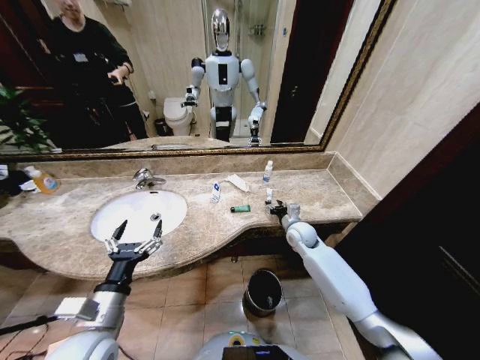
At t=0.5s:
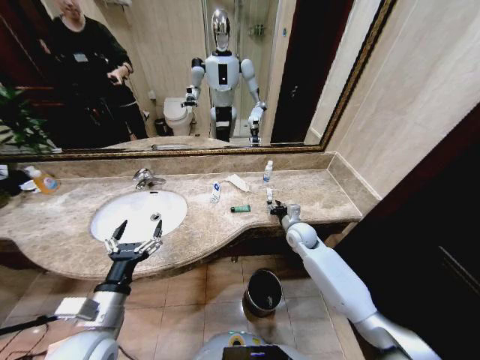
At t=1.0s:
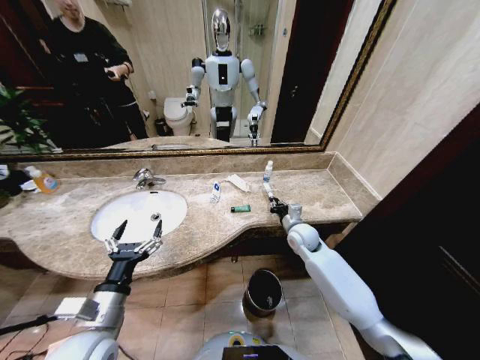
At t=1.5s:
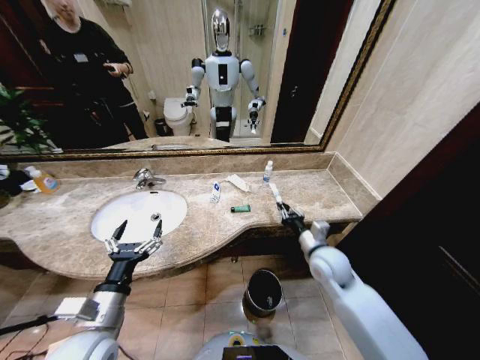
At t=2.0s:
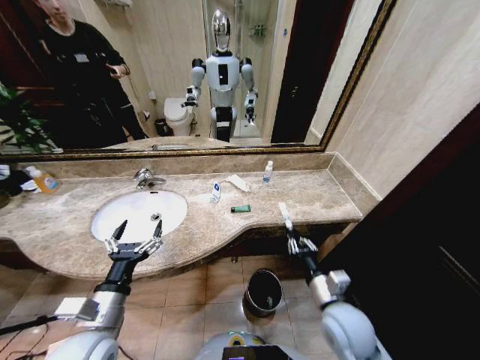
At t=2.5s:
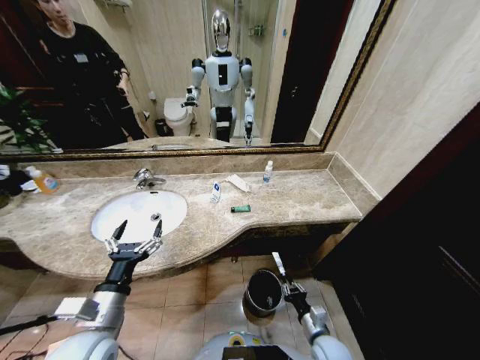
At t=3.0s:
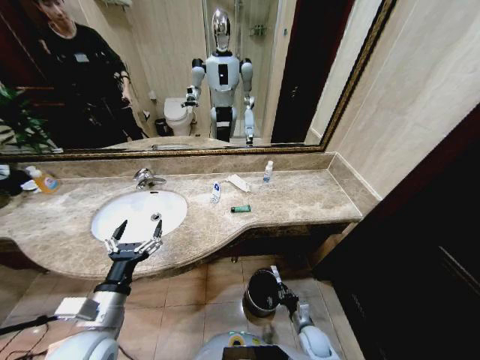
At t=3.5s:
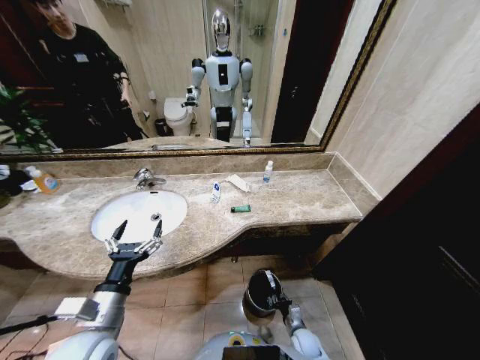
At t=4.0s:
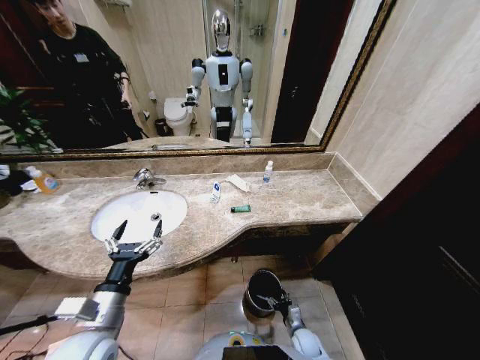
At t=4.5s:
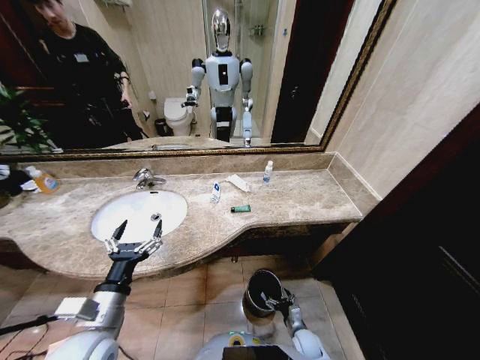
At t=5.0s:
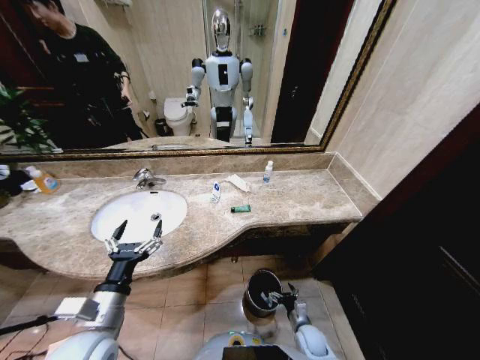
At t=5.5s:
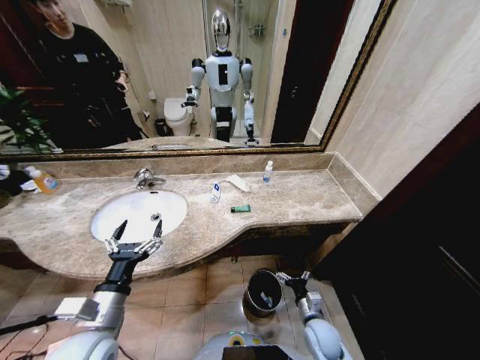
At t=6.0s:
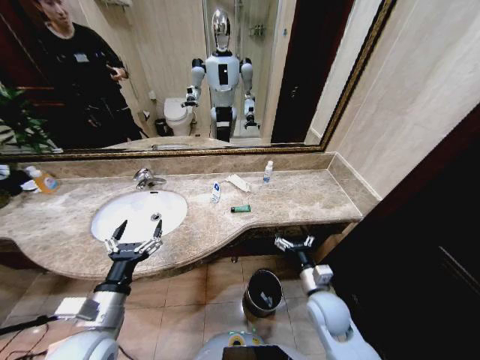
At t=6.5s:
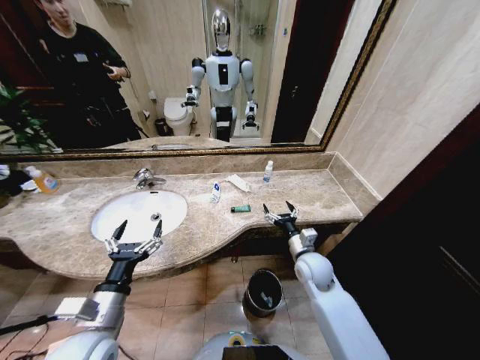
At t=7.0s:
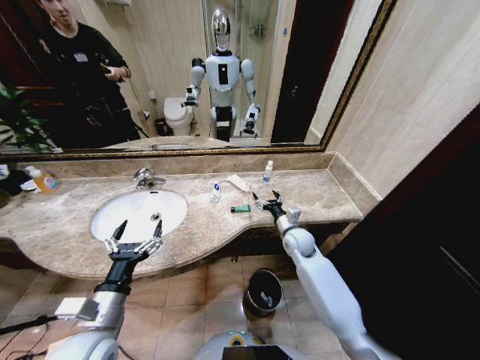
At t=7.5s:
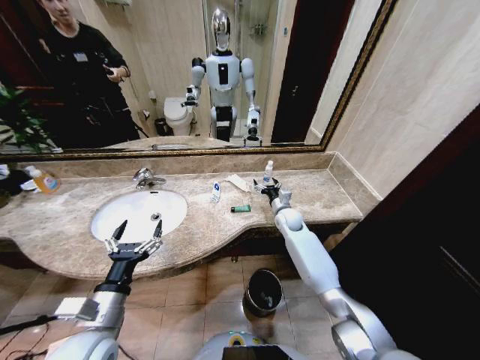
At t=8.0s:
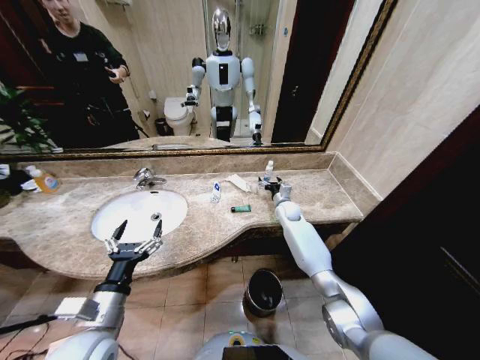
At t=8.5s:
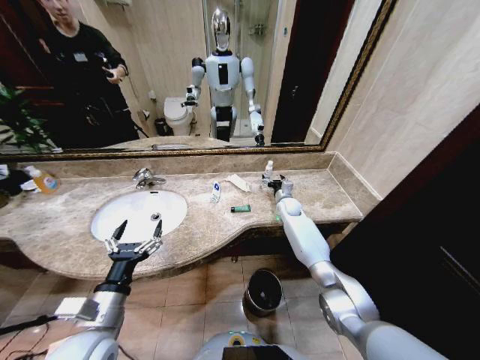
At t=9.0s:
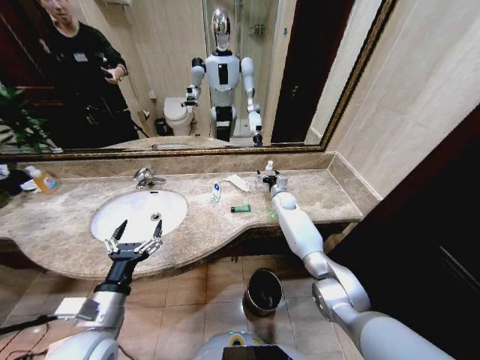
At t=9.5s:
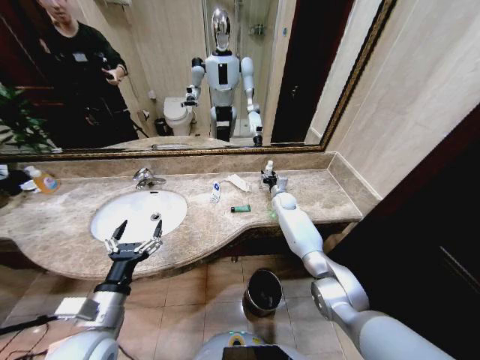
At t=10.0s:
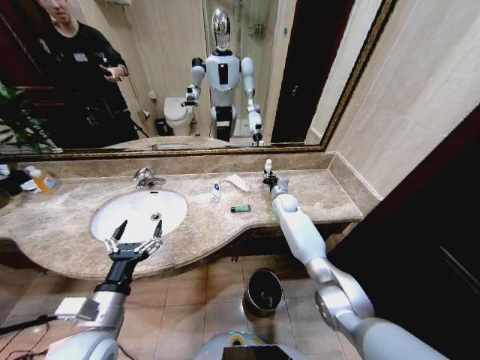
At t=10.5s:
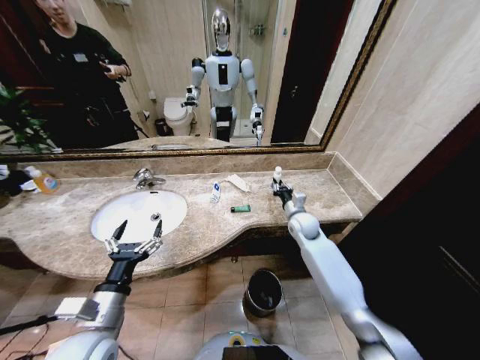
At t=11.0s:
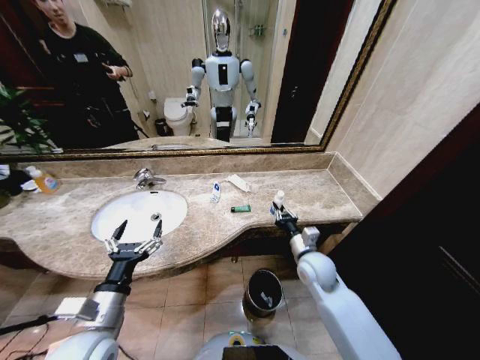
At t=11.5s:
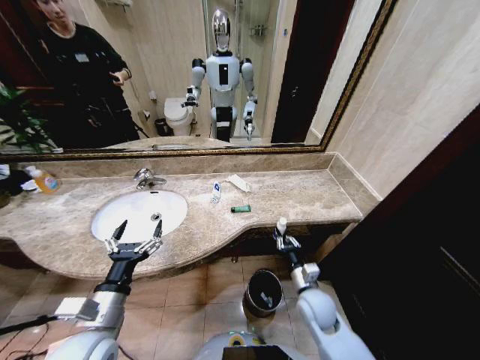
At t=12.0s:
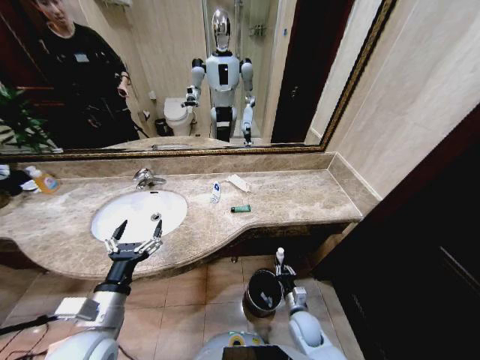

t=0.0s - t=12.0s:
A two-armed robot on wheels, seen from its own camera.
Task of the whole recording: Pick up the trash from the sink and place it in the trash bin.
t=0.0s - t=2.0s: The right gripper is displaced backward by some 25 cm, and closes its fingers.
t=2.0s - t=4.0s: The right gripper heads downward, covering some 30 cm, and opens its fingers.
t=4.0s - t=6.0s: The right gripper goes about 25 cm upward, and opens.
t=6.0s - t=8.0s: The right gripper heads forward, covering some 35 cm.
t=8.0s - t=10.0s: The right gripper closes up.
t=10.0s - t=12.0s: The right gripper shifts roughly 40 cm backward and downward.

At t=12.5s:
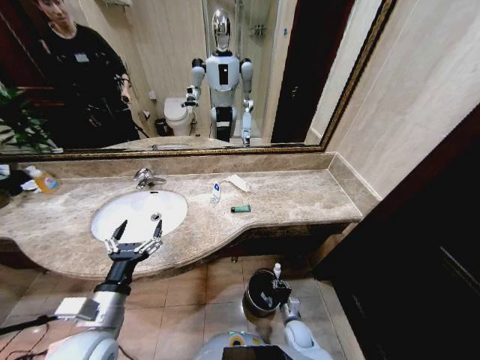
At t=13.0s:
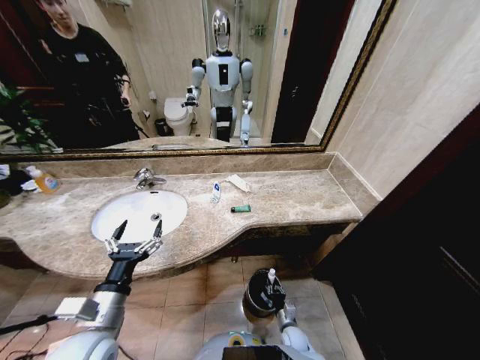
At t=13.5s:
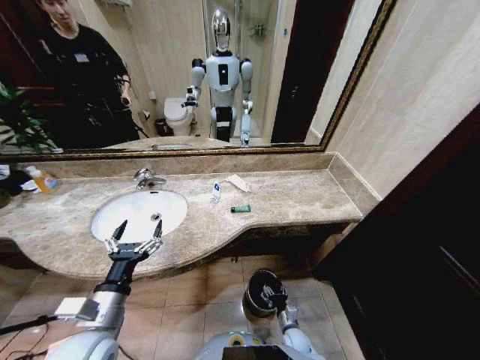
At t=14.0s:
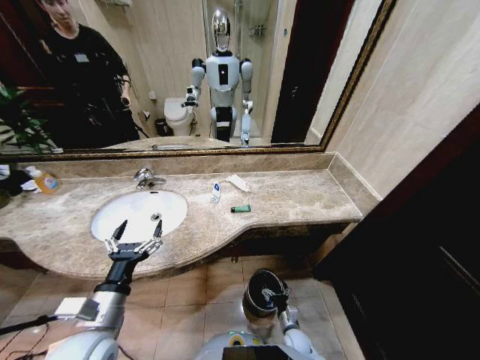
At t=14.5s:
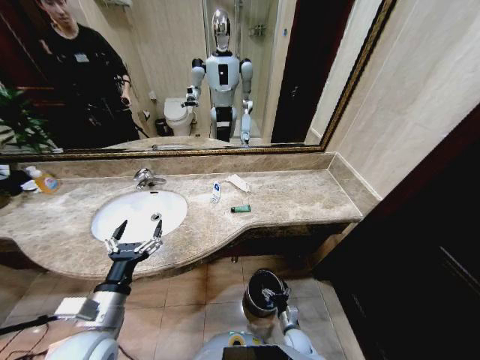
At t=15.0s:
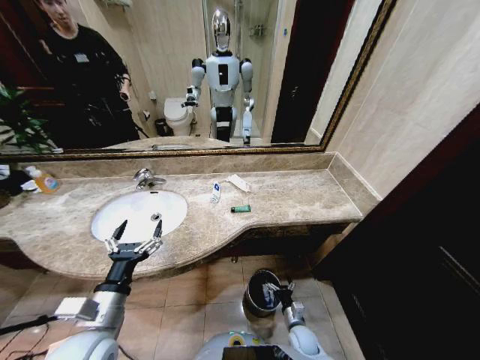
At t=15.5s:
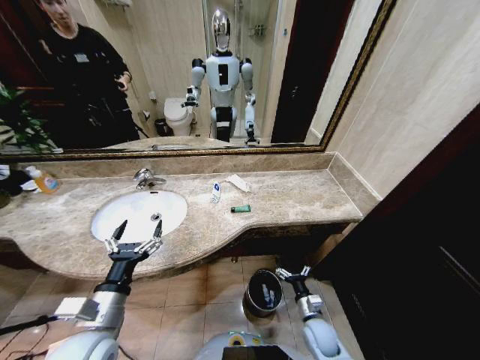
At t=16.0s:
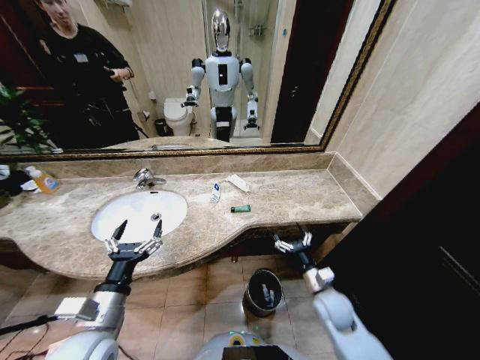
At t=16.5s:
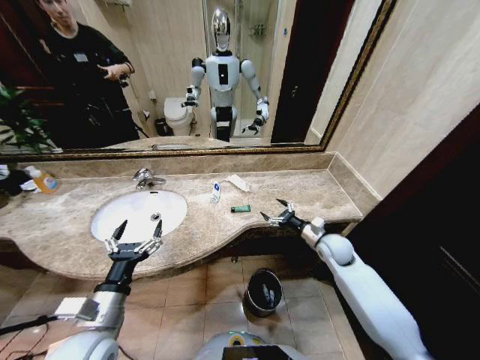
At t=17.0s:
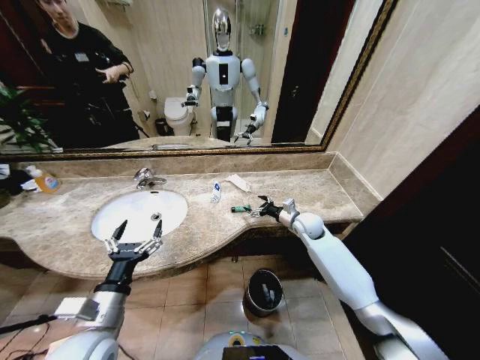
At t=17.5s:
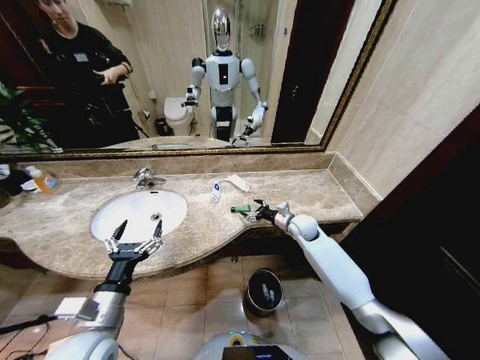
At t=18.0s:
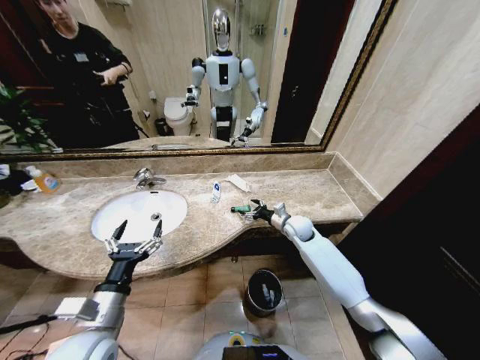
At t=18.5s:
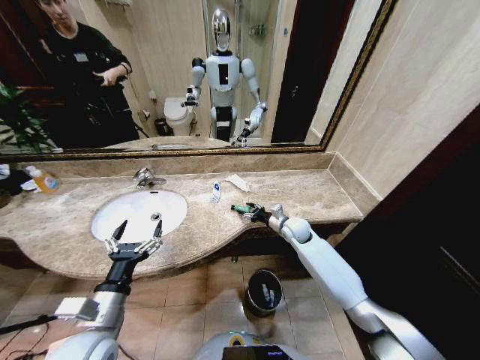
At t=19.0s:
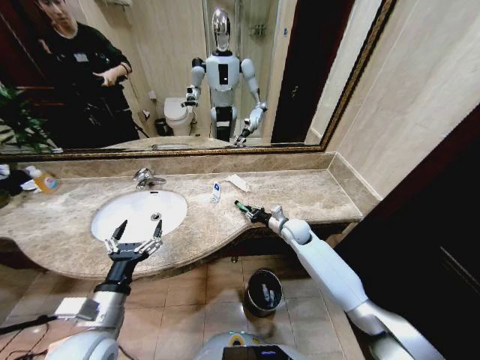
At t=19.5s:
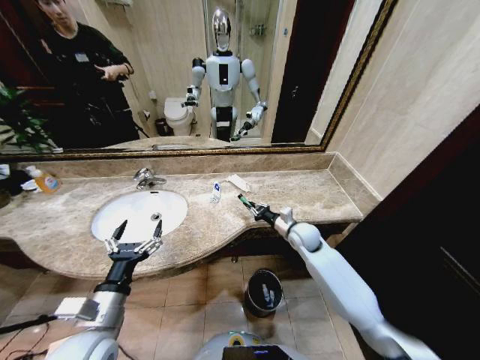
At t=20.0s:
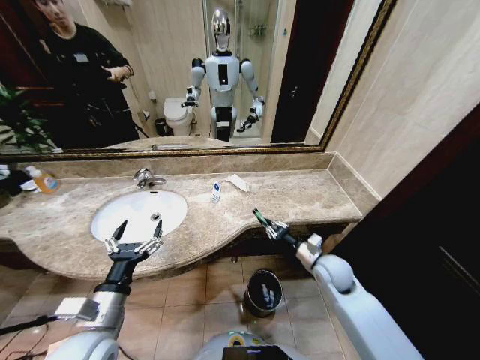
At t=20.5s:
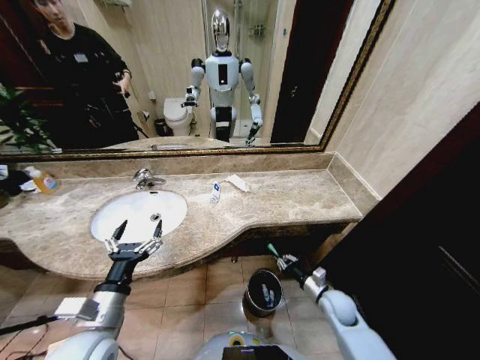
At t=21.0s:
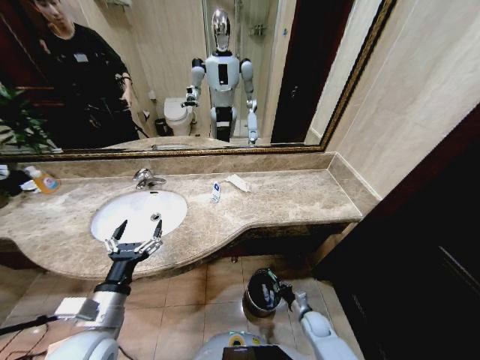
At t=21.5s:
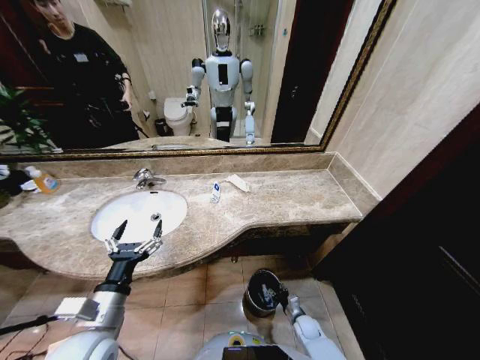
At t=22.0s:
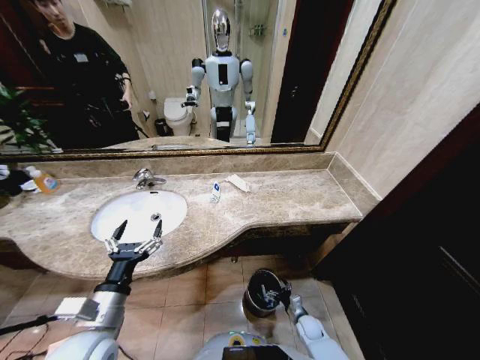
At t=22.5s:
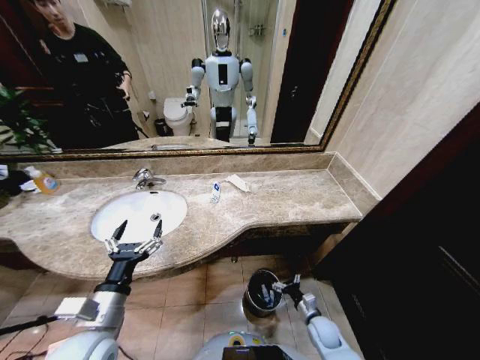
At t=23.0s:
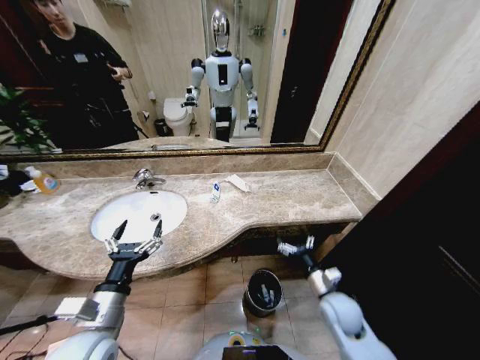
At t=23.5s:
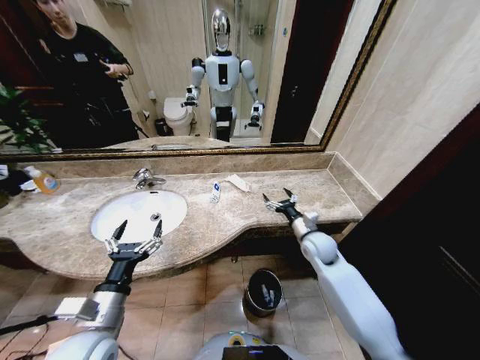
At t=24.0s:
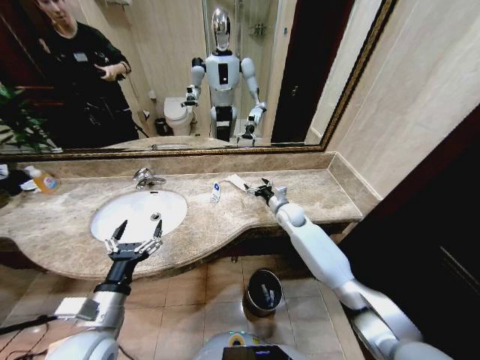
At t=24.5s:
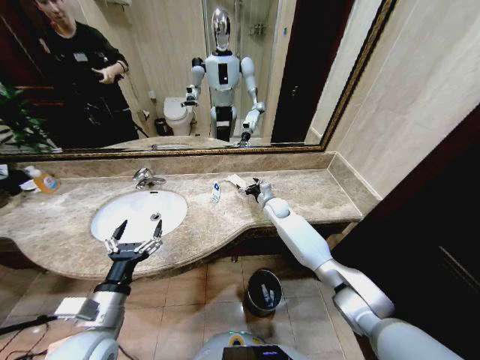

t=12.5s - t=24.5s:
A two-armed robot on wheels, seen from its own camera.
Task of the whole recording: Pick up the trash from the sink and place it in the trash bin.
t=12.5s - t=14.5s: The right gripper opens its fingers.
t=14.5s - t=16.5s: The right gripper heads upward and forward, covering roughly 40 cm.
t=16.5s - t=18.5s: The right gripper moves to the left and forward, approximately 10 cm.
t=18.5s - t=20.5s: The right gripper travels backward, downward and to the right by some 25 cm, and closes up.
t=20.5s - t=22.5s: The right gripper travels downward and backward by roughly 15 cm, and opens up.
t=22.5s - t=24.5s: The right gripper moves forward and upward, some 40 cm.

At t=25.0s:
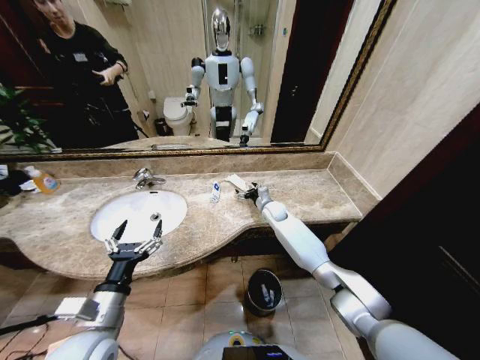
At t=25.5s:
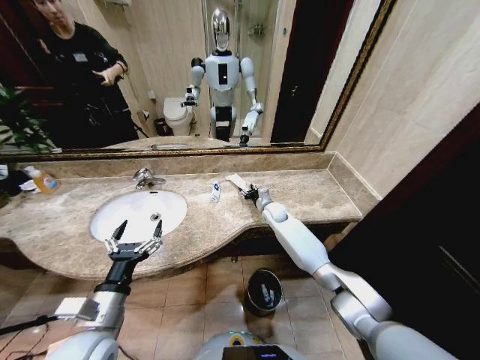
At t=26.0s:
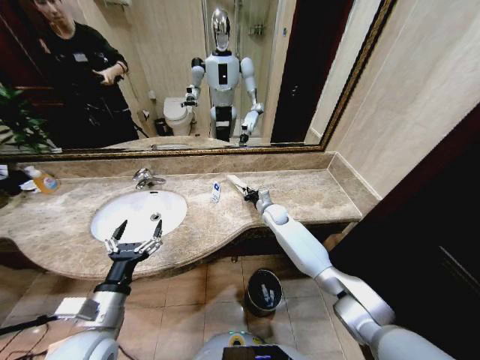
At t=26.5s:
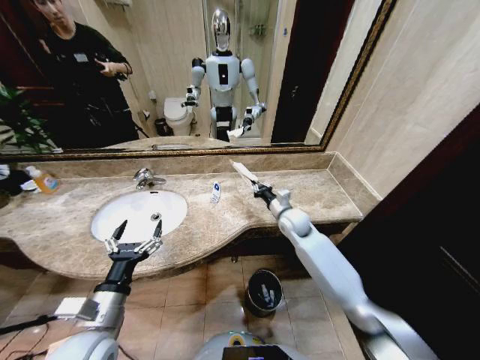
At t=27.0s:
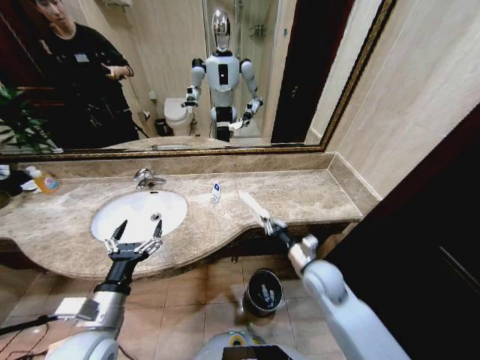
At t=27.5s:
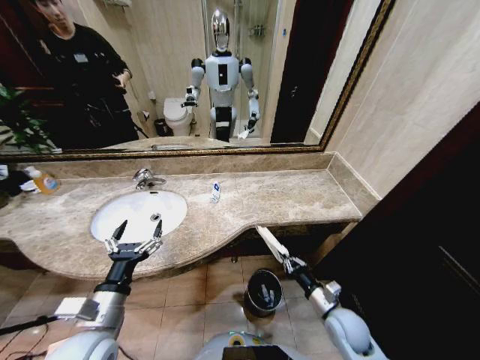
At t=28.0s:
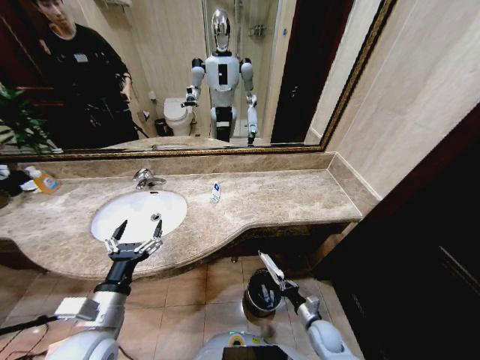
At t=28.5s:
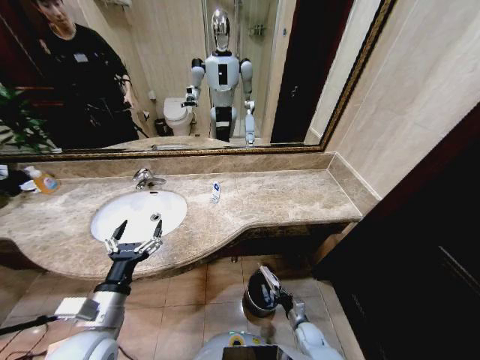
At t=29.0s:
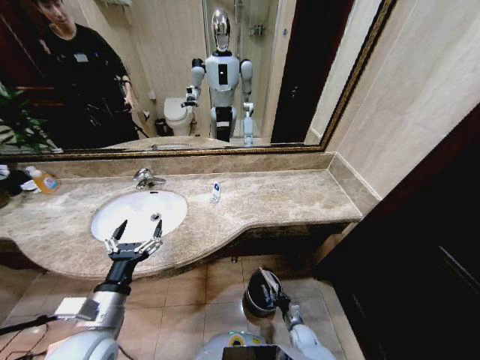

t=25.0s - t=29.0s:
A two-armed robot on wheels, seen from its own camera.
Task of the whole recording: Pick up the trash from the sink and place it in the trash bin.
t=25.0s - t=27.0s: The right gripper moves backward, roughly 30 cm, and closes up.
t=27.0s - t=29.0s: The right gripper moves downward, about 35 cm.
